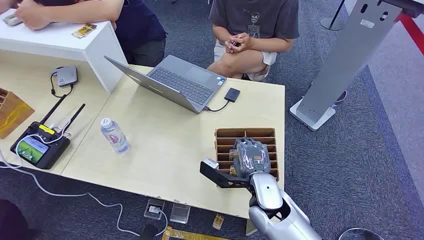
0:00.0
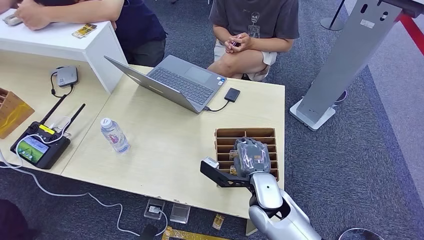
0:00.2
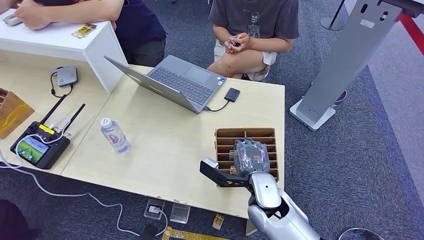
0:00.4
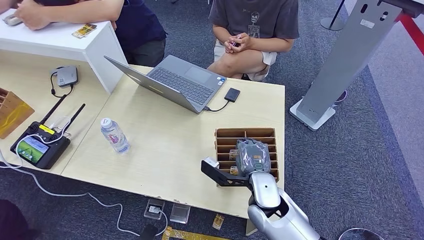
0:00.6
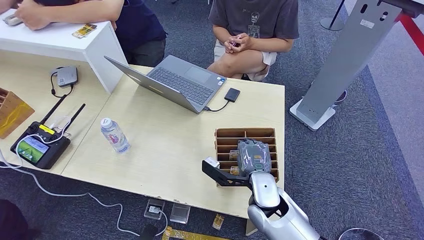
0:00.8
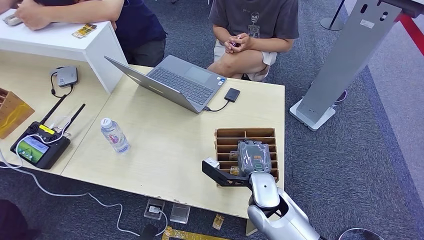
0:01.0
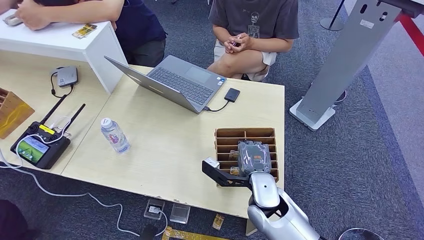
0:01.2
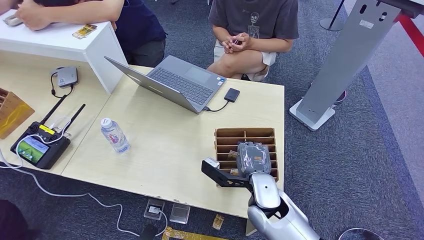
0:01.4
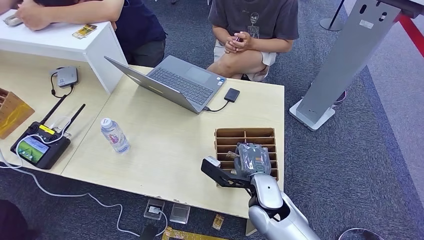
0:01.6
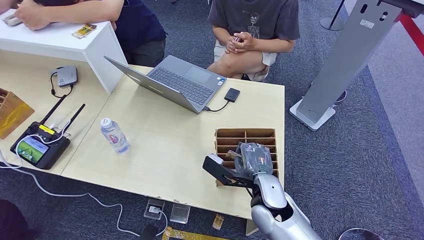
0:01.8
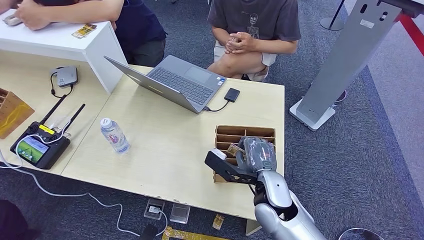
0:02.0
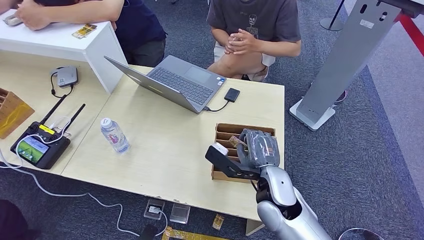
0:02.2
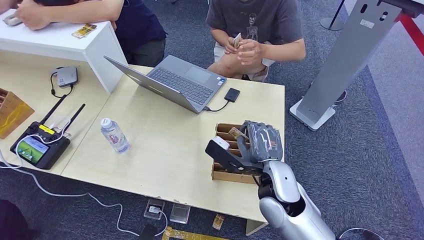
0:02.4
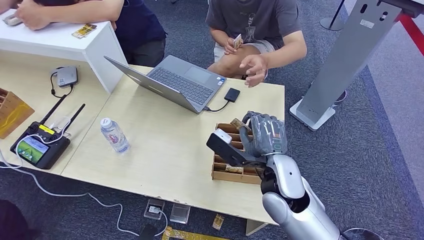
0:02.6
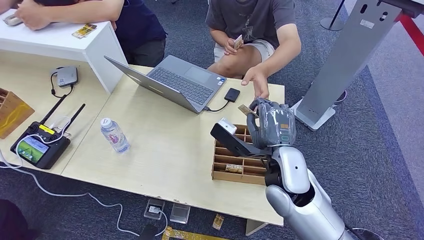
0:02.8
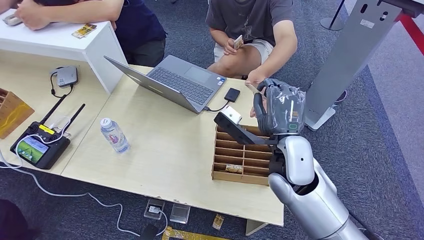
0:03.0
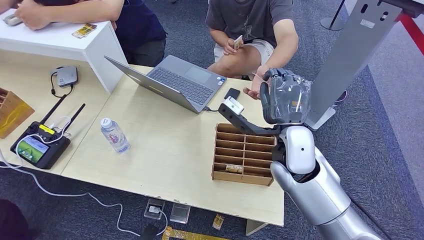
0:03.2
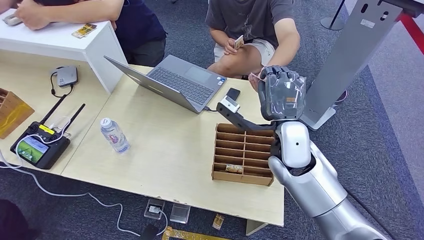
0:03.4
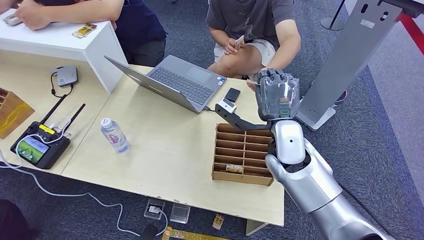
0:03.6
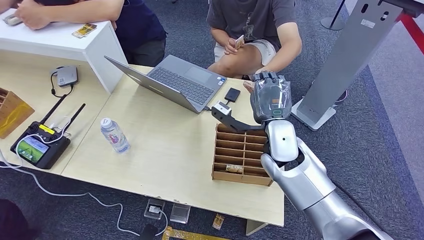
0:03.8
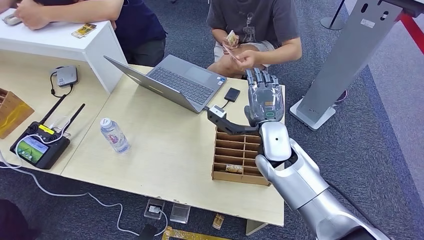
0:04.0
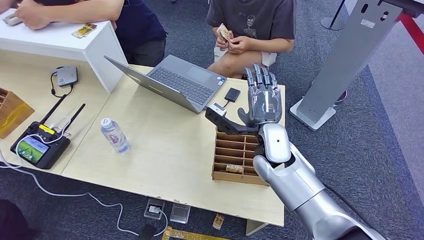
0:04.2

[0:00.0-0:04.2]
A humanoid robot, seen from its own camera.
Step, 0:00.0 to 0:02.6: Pick up the room card from the card holder.
Step, 0:03.2 to 0:04.2: Hand the room card to the target.
0:01.4 to 0:02.8: The right hand moves upward, roughly 10 cm.
0:02.8 to 0:04.2: The right hand moves forward, approximately 10 cm.
